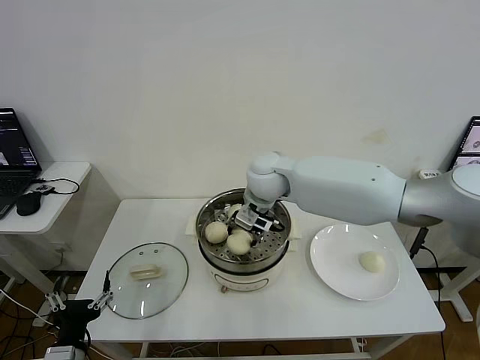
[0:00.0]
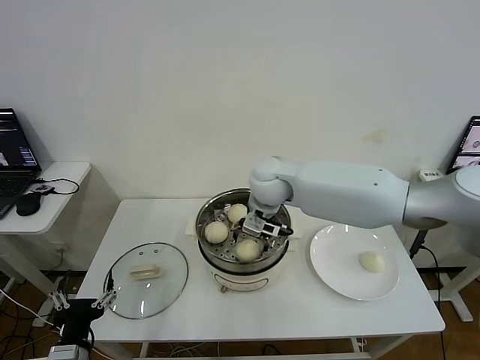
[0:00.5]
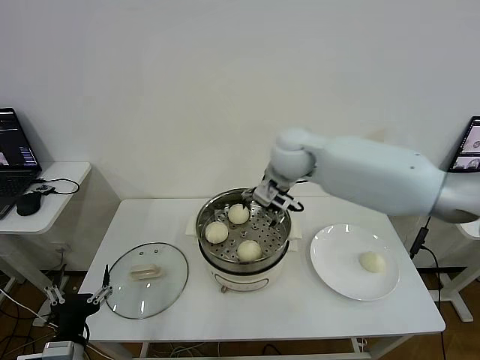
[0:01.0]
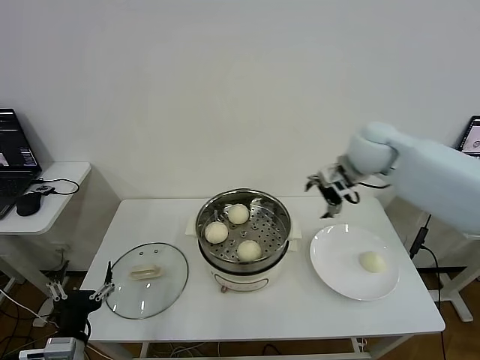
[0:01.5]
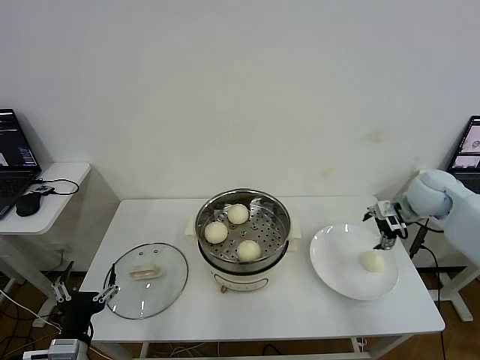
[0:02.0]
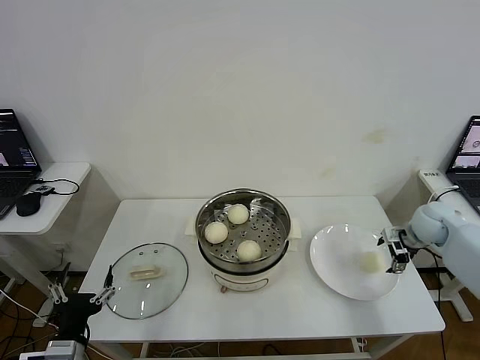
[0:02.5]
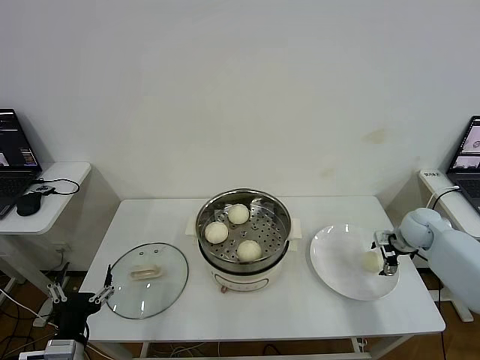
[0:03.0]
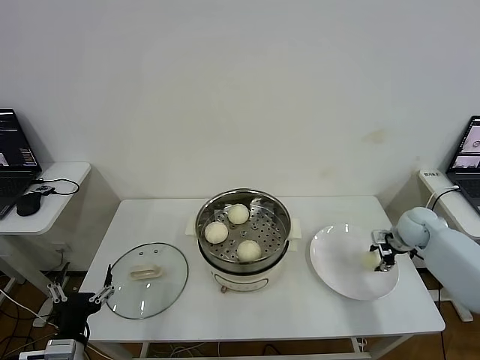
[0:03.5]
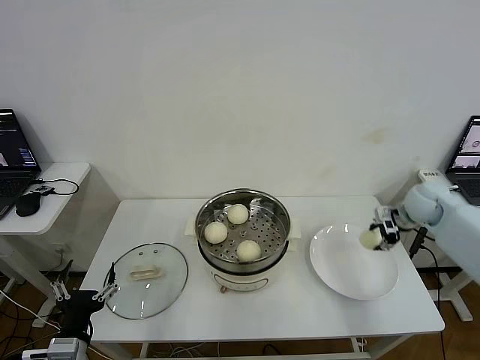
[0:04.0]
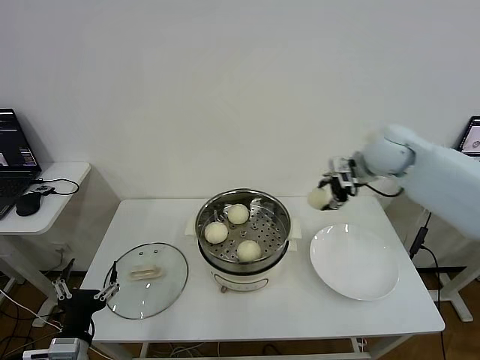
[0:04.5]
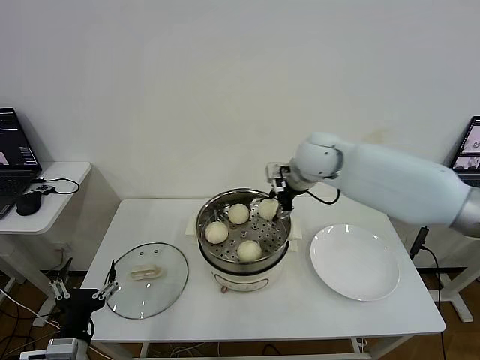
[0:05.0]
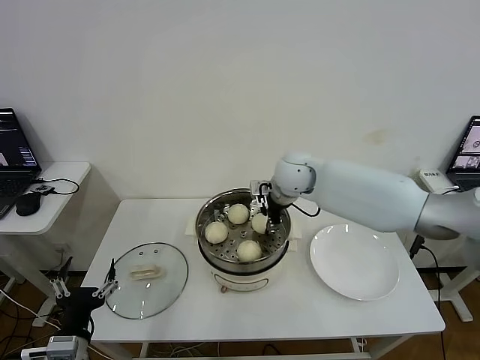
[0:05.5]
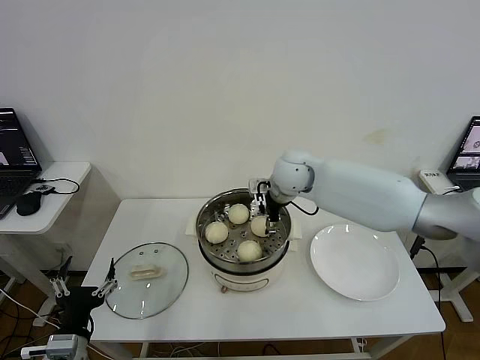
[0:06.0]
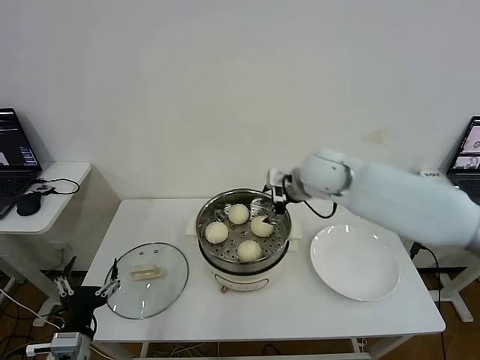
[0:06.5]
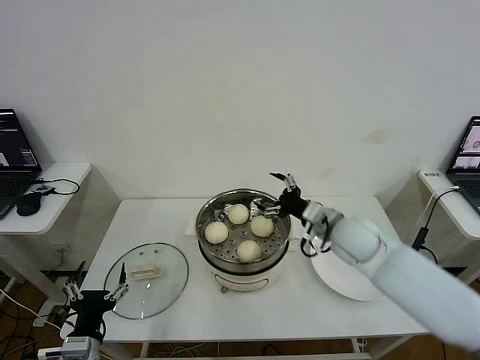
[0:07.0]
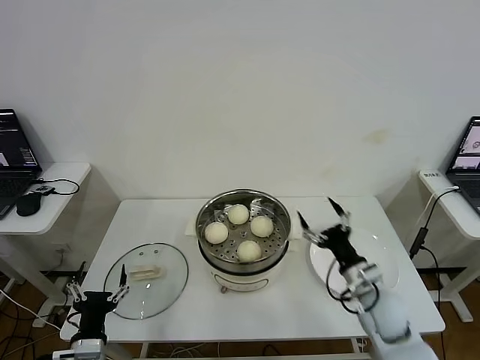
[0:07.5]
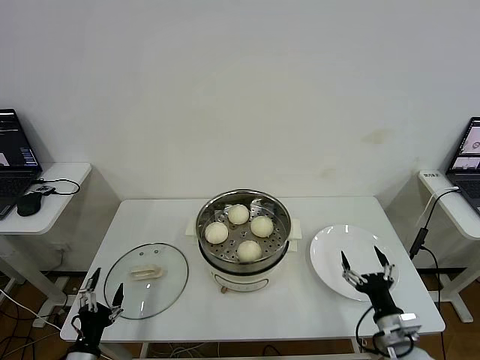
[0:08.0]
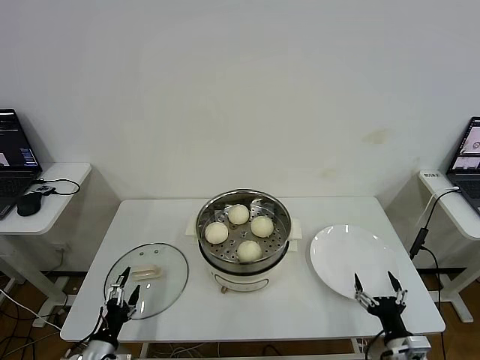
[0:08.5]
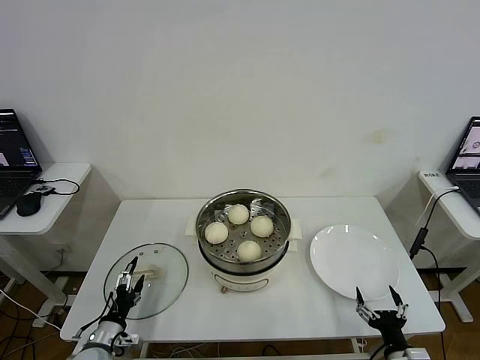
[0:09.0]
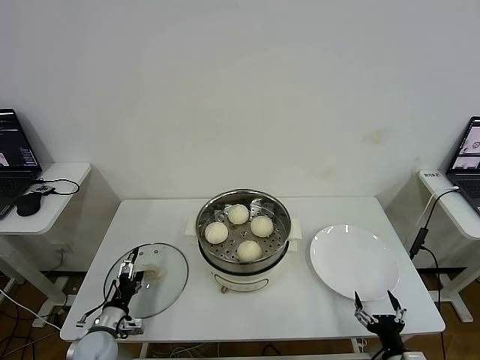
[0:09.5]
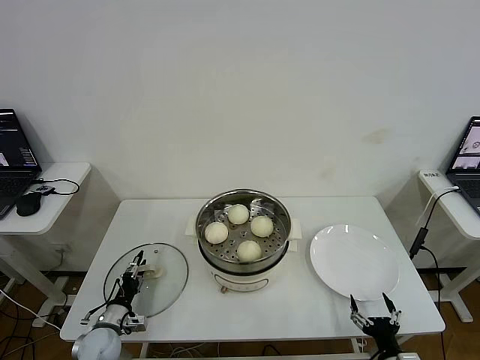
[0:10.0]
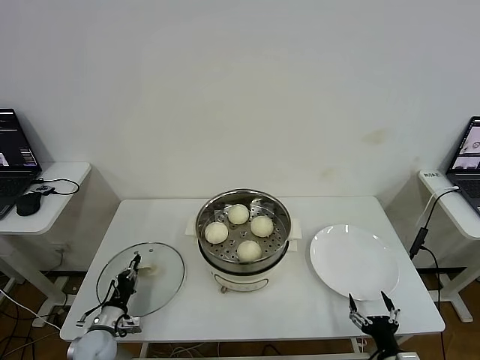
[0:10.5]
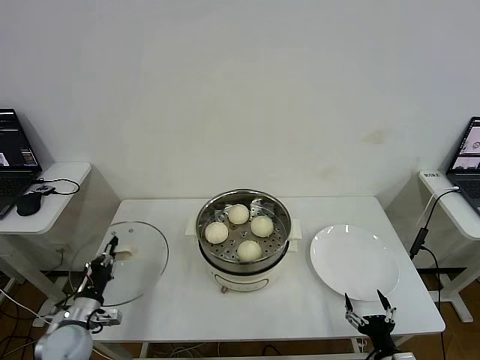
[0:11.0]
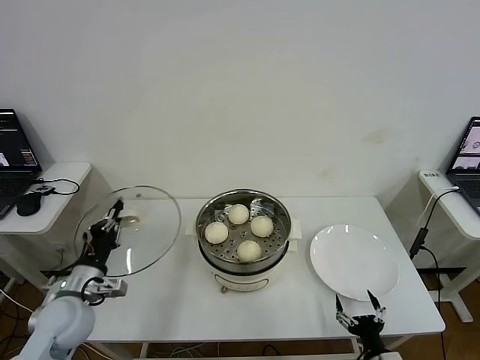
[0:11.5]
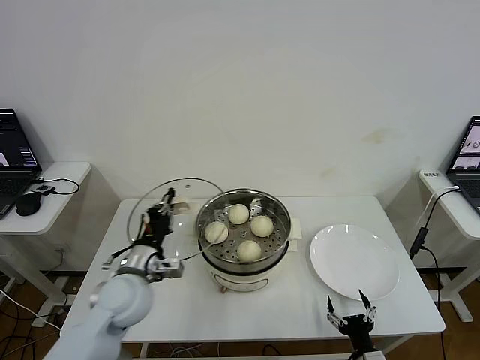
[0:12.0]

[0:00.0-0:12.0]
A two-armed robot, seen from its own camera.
Step, 0:01.0 to 0:03.0: Grasp the baozi in the plate with right gripper.
Step, 0:04.0 to 0:06.0: Place the baozi on the steamer with right gripper.
Step, 0:06.5 to 0:10.5: Grasp the pot lid with left gripper.
0:00.0 to 0:02.0: The right gripper moves to the right, roughly 35 cm, and opens its fingers.
0:02.0 to 0:04.0: The right gripper reaches roughly 10 cm downward, then returns, and closes up.
0:04.0 to 0:06.0: The right gripper shifts roughly 30 cm to the left, and opens up.
0:06.0 to 0:08.0: The right gripper goes about 50 cm backward, downward and to the right. The left gripper is displaced downward by approximately 10 cm.
0:08.0 to 0:10.0: The left gripper travels forward and downward by approximately 15 cm, and closes; the right gripper heads backward and downward, covering some 10 cm.
0:10.0 to 0:12.0: The left gripper moves upward and to the right, approximately 25 cm, and closes its fingers, while the right gripper shifts about 5 cm to the left.

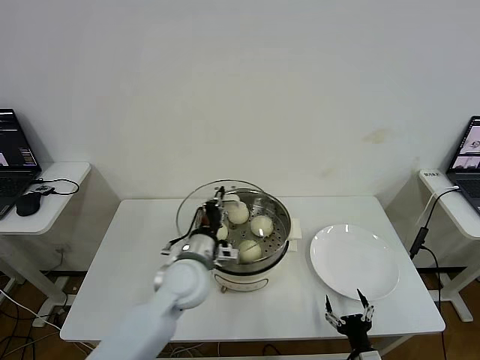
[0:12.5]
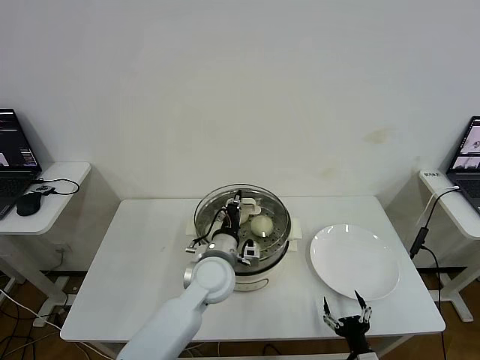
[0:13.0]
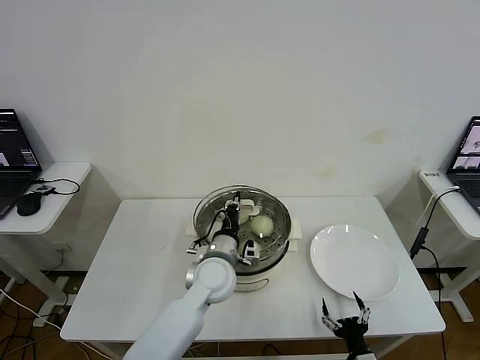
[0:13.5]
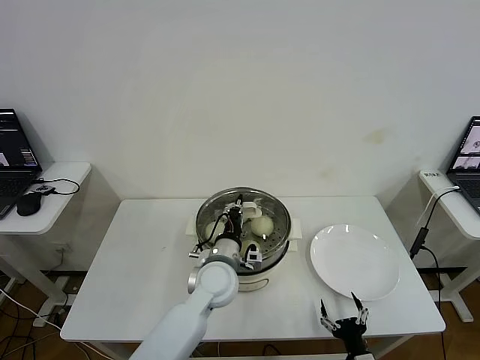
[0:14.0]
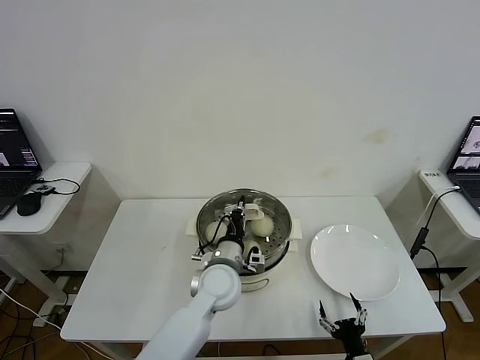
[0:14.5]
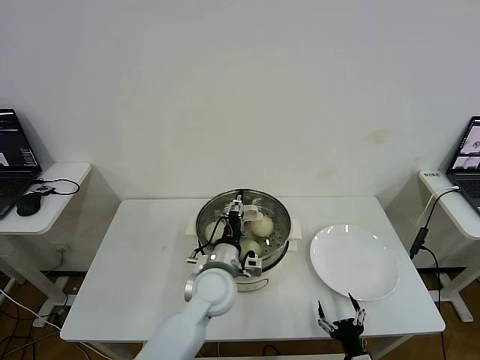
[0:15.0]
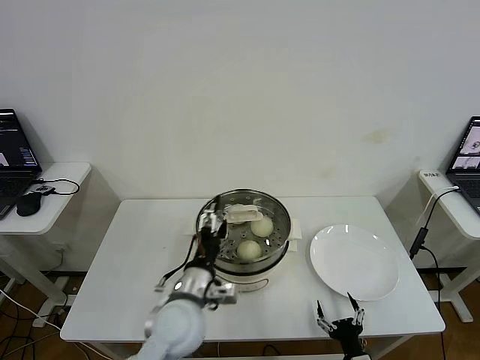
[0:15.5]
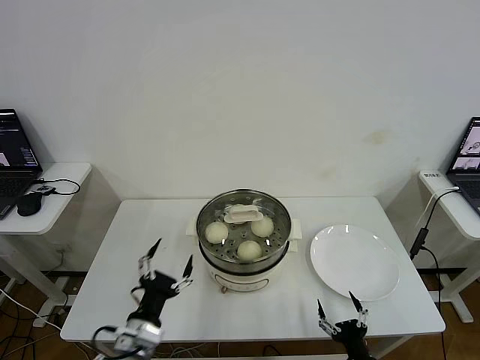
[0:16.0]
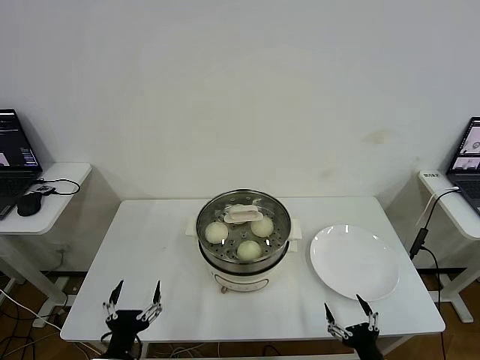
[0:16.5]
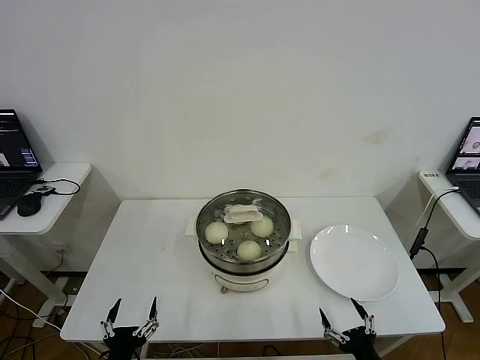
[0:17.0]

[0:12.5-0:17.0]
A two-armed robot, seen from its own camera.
Step, 0:12.5 to 0:15.0: Place the pot lid on the steamer with left gripper.
0:12.5 to 0:14.5: The left gripper is displaced to the right by roughly 5 cm.
0:14.5 to 0:17.0: The right gripper heads upward, covering roughly 5 cm; the left gripper goes about 35 cm backward and to the left, and opens up.

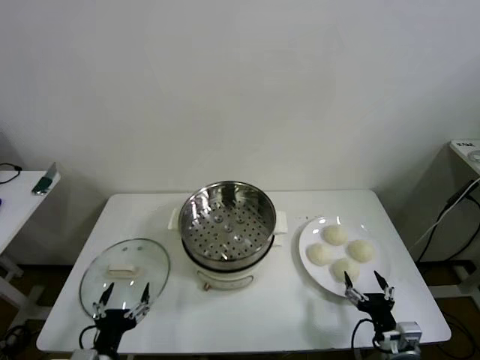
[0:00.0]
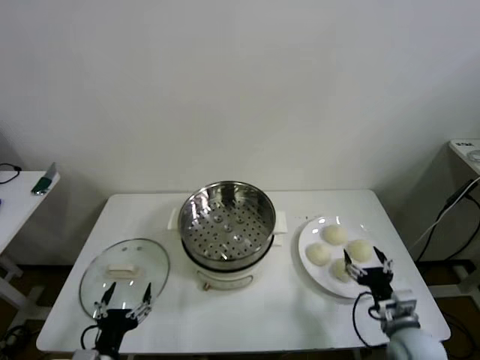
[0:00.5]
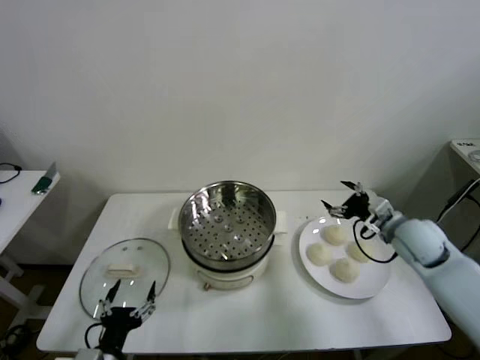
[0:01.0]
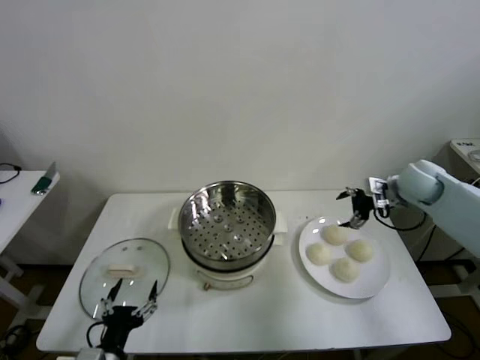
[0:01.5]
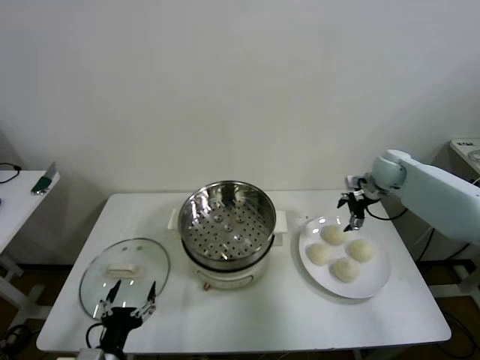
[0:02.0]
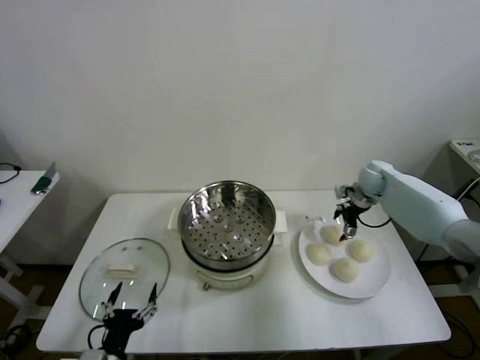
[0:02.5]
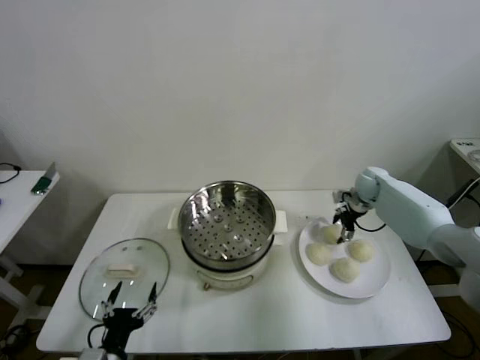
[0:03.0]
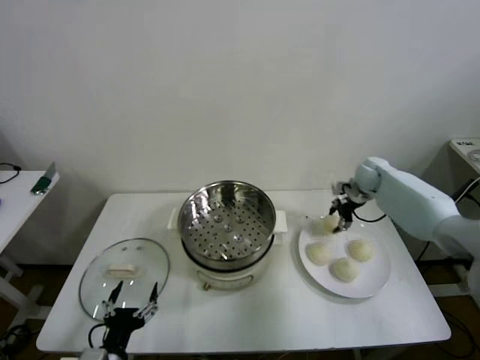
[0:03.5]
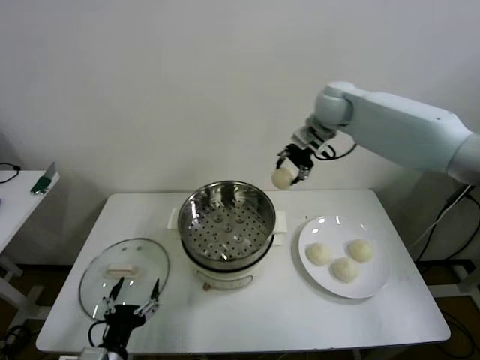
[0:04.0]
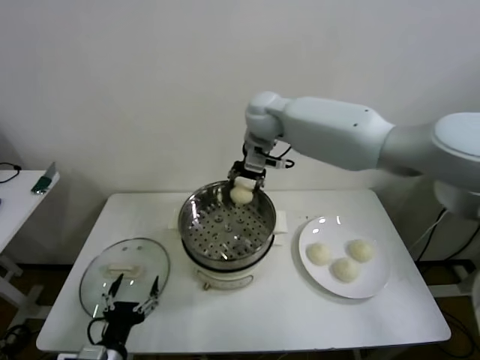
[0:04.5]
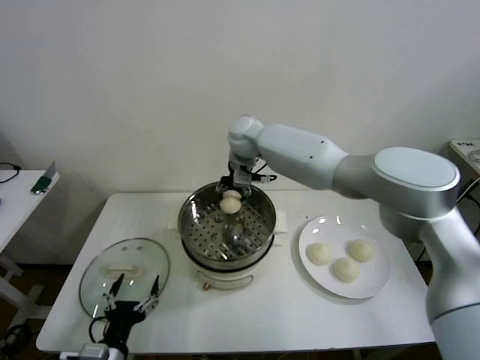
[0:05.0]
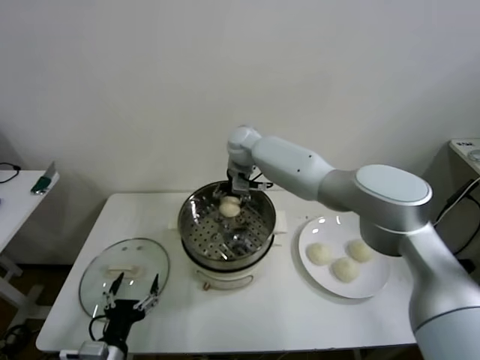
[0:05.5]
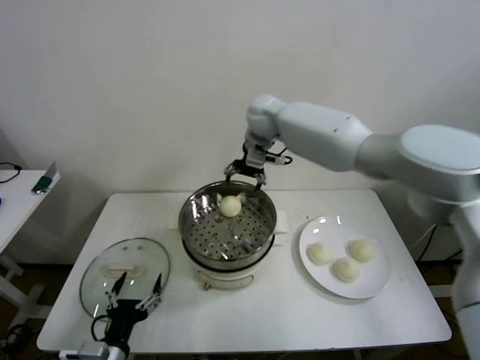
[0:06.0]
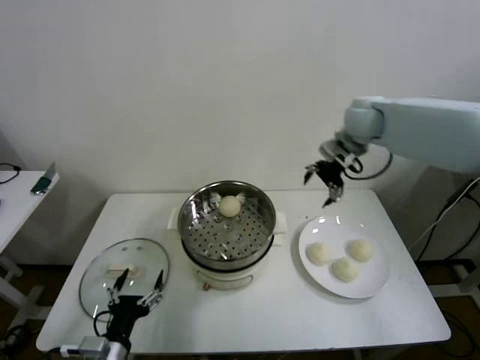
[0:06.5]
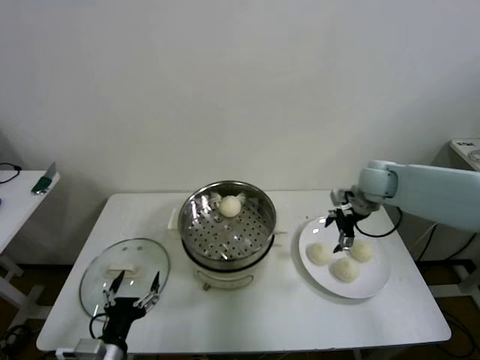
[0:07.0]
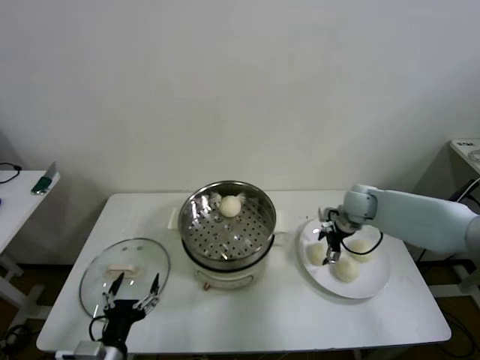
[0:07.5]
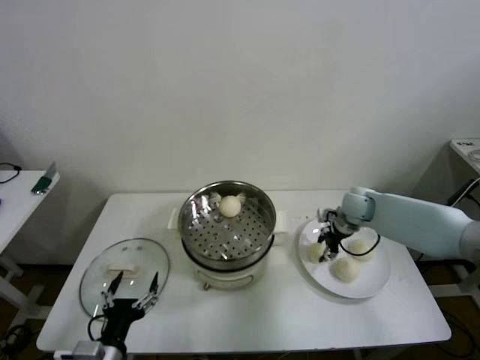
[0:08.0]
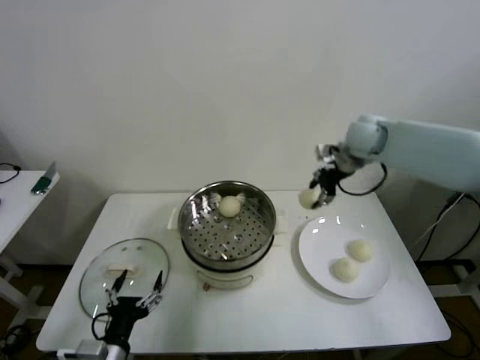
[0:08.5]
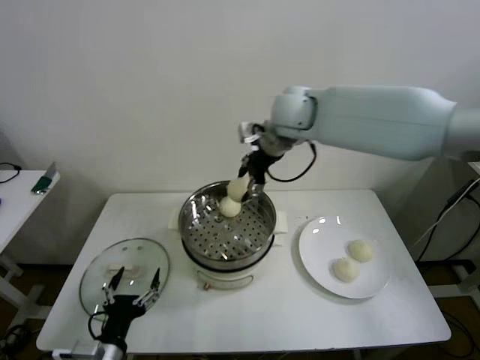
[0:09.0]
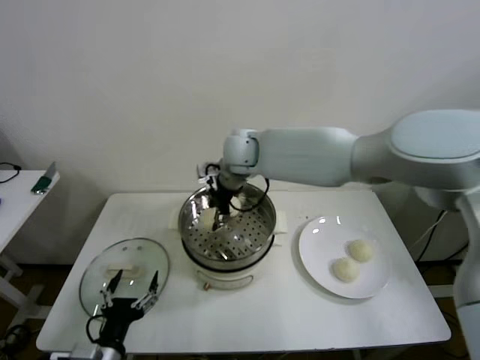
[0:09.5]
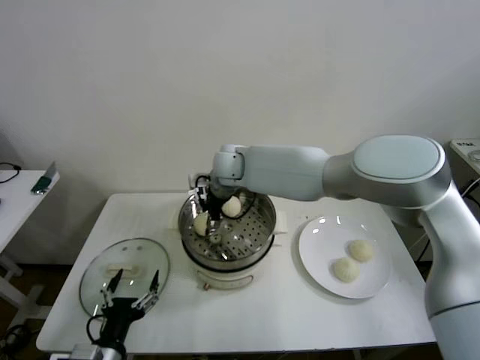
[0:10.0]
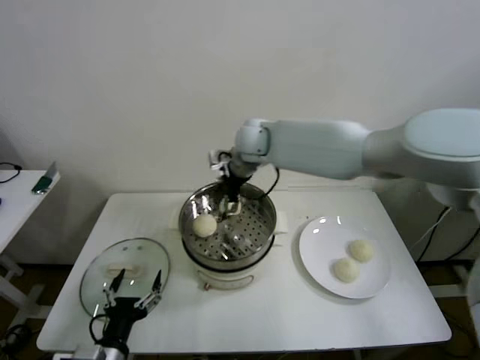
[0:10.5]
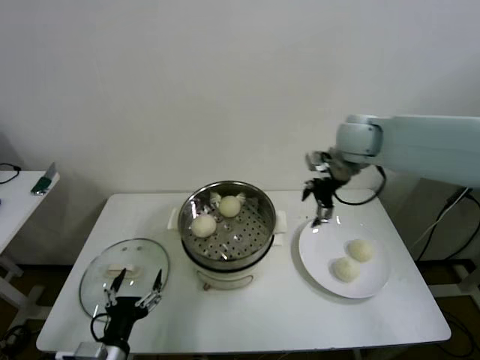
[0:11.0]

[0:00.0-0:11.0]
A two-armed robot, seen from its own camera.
Step, 0:00.0 to 0:03.0: Grasp the baozi in the plate with right gripper.
Step, 0:03.5 to 0:05.5: Place the baozi on the steamer with right gripper.
Step, 0:06.0 to 0:07.5: Grasp the baozi in the plate with right gripper.
Step, 0:08.0 to 0:10.0: Place the baozi on the steamer with right gripper.
0:02.0 to 0:03.5: The right gripper closes its fingers.
0:03.5 to 0:05.5: The right gripper shifts approximately 35 cm to the left, and opens.
0:05.5 to 0:07.5: The right gripper moves to the right and downward, some 35 cm.
0:07.5 to 0:09.0: The right gripper is displaced upward and to the left by about 35 cm, and closes.
0:09.0 to 0:11.0: The right gripper moves to the right, approximately 20 cm, and opens its fingers.
